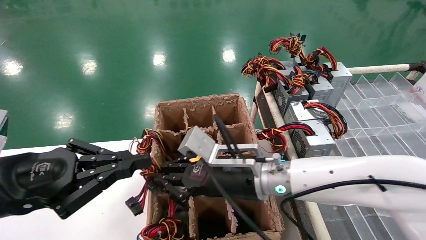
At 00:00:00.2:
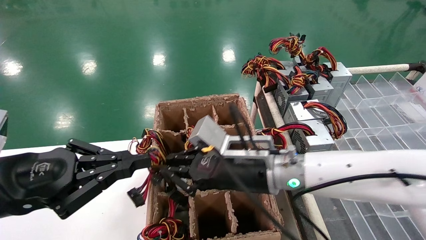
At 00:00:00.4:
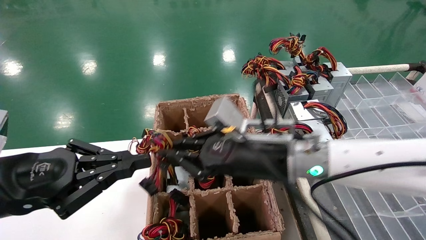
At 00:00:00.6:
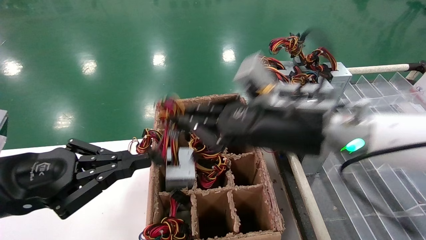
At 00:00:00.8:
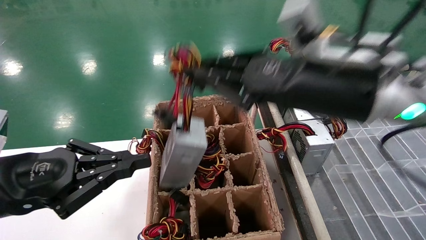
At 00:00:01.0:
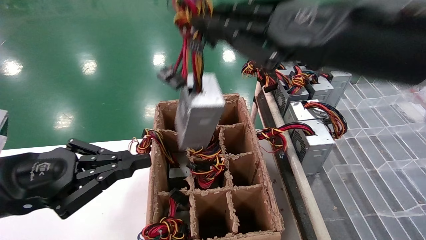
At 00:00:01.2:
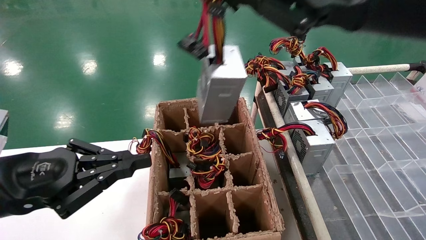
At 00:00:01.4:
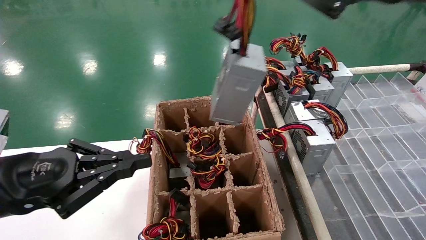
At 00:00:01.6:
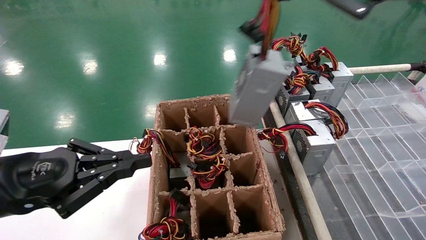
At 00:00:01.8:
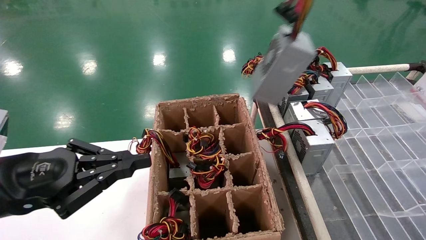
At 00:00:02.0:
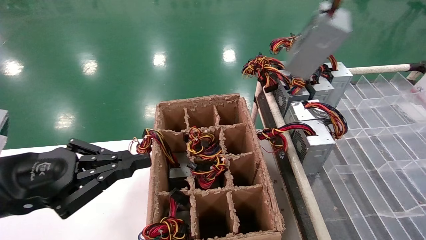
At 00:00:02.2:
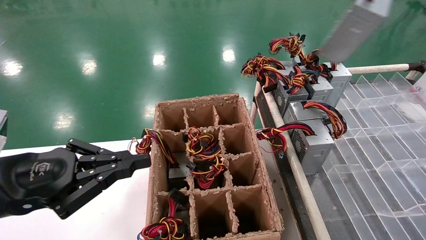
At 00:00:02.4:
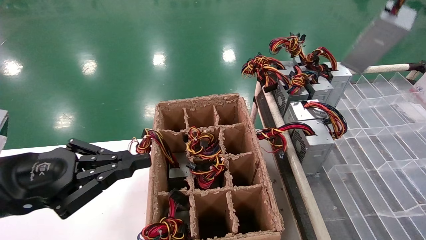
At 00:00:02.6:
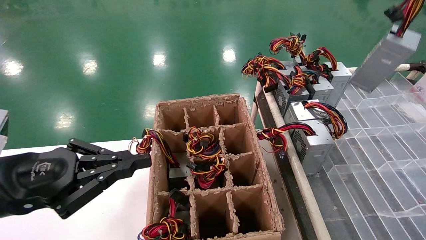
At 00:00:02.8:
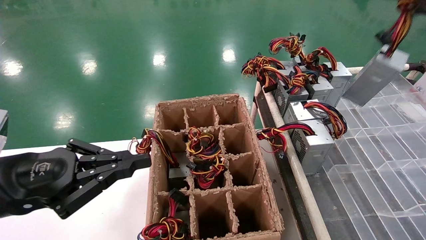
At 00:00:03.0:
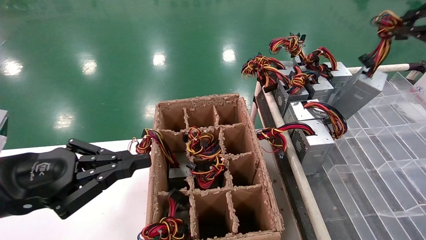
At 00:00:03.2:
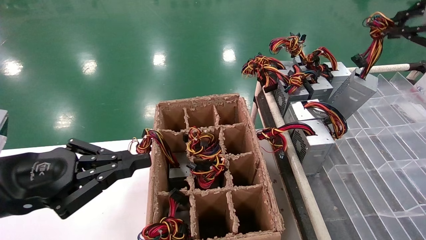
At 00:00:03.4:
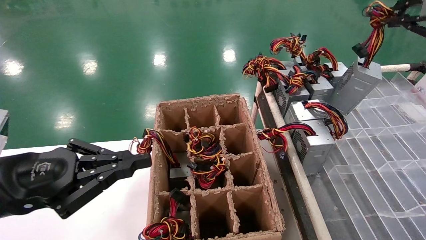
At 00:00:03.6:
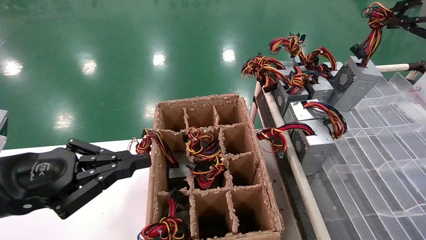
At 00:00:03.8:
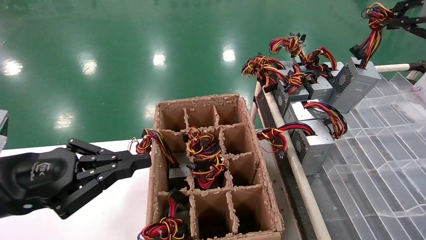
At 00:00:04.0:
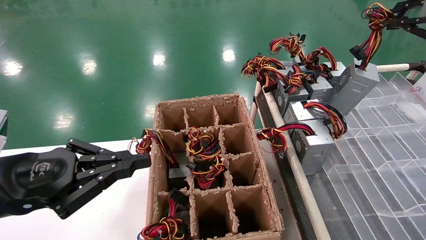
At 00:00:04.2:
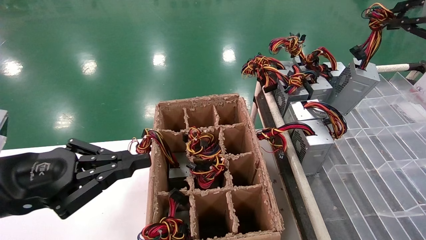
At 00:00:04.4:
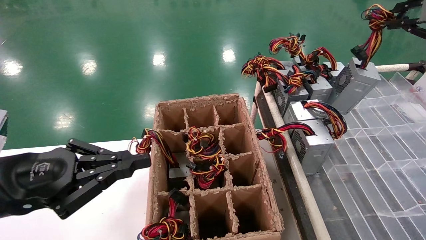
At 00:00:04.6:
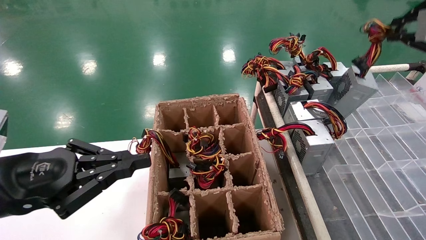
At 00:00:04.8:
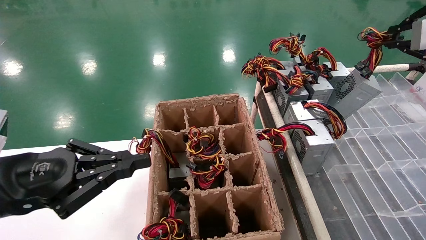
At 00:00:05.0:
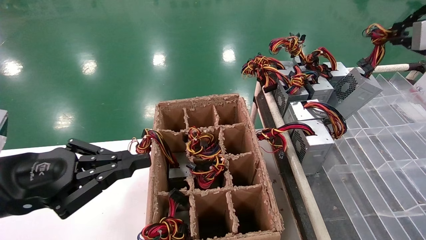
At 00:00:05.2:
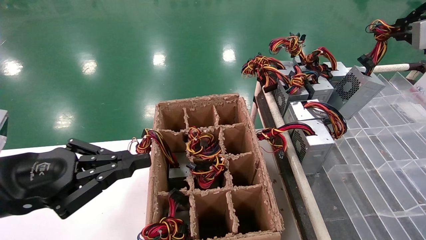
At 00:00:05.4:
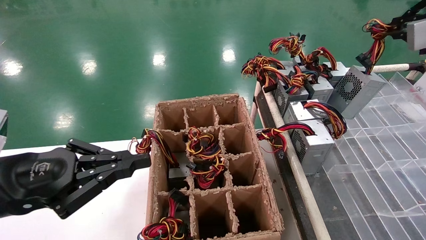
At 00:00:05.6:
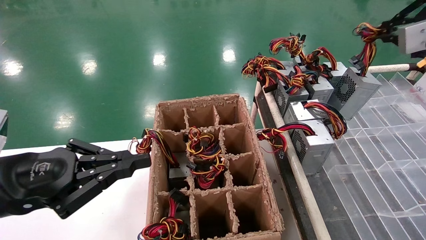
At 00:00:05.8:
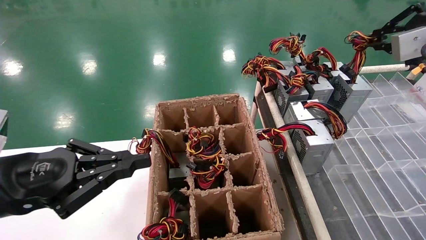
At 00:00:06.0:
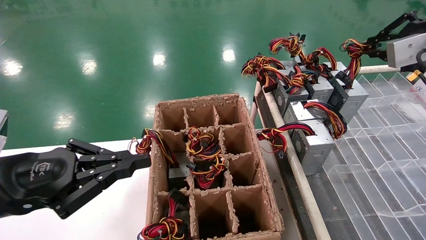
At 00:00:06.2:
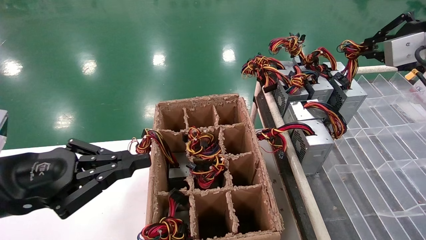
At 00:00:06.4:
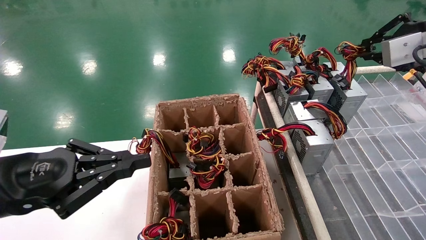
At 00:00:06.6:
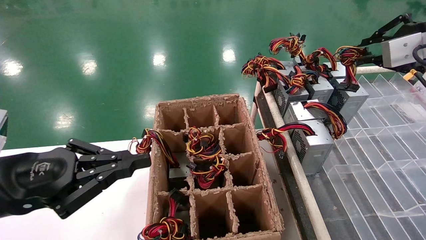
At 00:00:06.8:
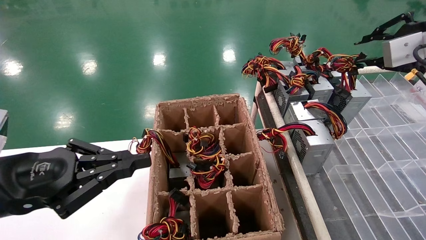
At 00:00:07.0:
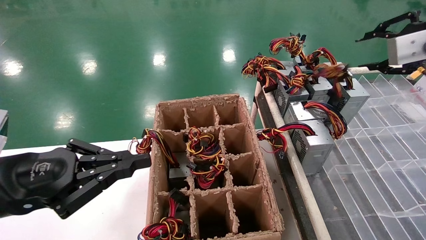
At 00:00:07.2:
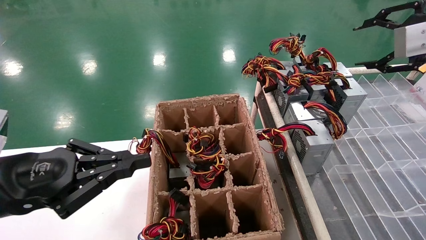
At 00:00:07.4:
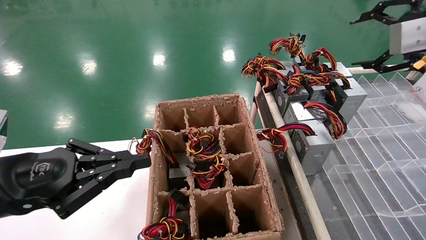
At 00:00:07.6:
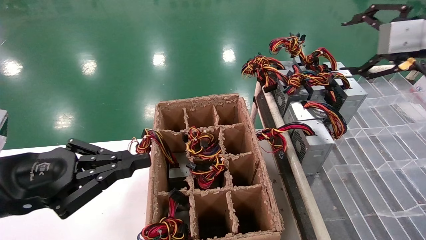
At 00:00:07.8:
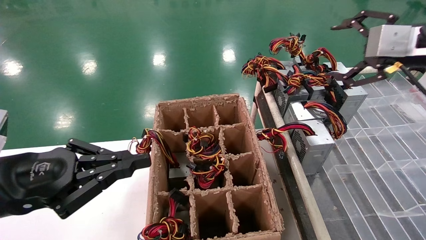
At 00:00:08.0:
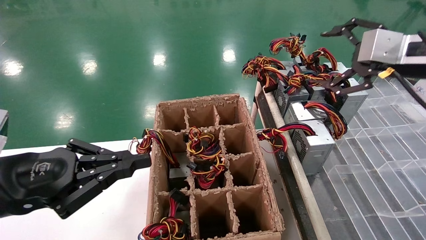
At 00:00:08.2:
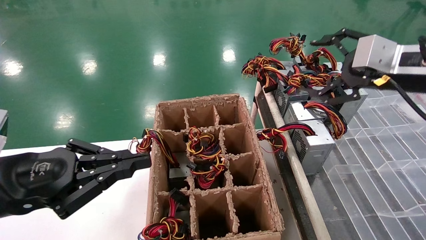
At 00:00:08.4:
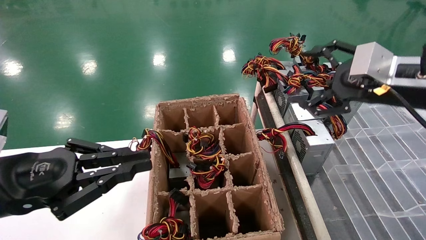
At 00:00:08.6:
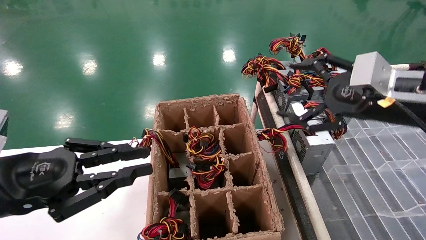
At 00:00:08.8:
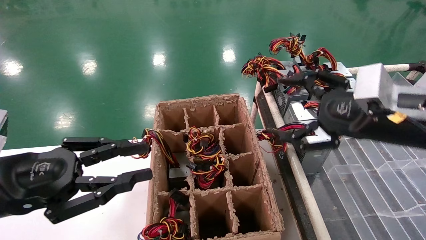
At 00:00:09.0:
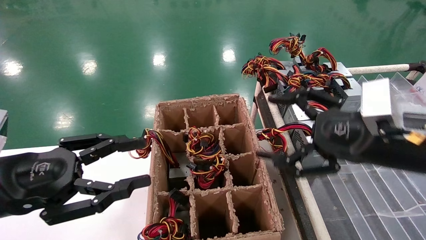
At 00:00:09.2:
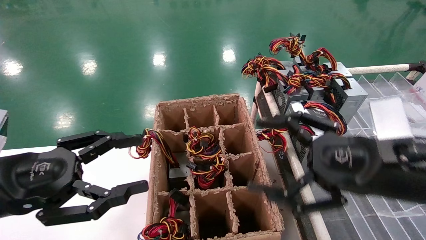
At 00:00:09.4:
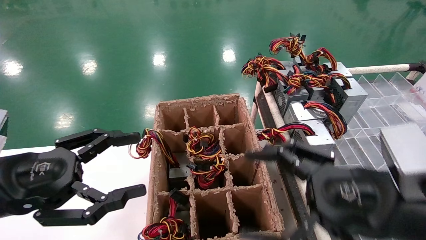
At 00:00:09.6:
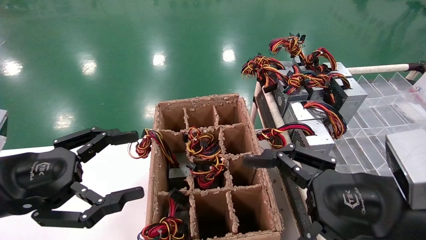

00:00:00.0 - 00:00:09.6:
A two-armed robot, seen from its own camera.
Step, 00:00:00.2 - 00:00:07.0: Place the main unit power supply in the designated area.
00:00:00.0 - 00:00:01.6: The right gripper heads upward, to the right and backward, covering about 35 cm.
00:00:01.6 - 00:00:03.2: The right gripper travels to the right and forward by roughly 20 cm.
00:00:03.2 - 00:00:04.8: The grippers stay close to where they were, moving slightly.
00:00:04.8 - 00:00:06.4: The grippers make only small movements.
00:00:06.4 - 00:00:08.0: The right gripper shifts about 5 cm to the left, and opens.
00:00:08.0 - 00:00:09.6: The right gripper moves downward, backward and to the left, approximately 25 cm, while the left gripper opens up.

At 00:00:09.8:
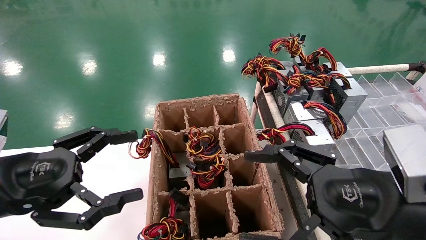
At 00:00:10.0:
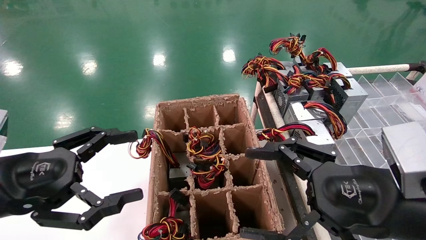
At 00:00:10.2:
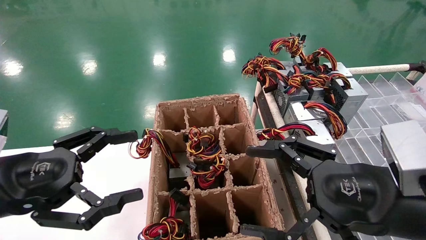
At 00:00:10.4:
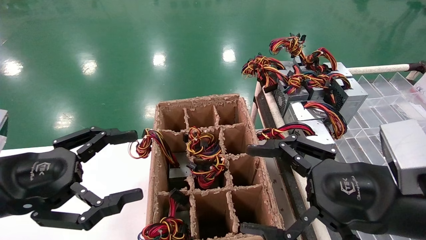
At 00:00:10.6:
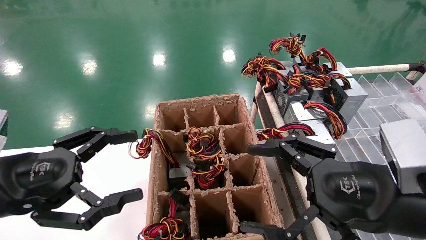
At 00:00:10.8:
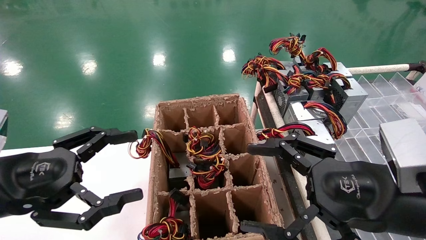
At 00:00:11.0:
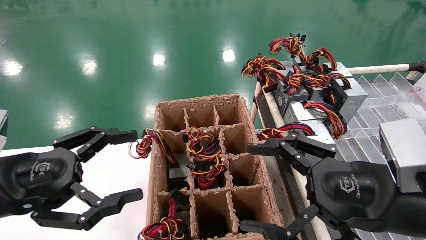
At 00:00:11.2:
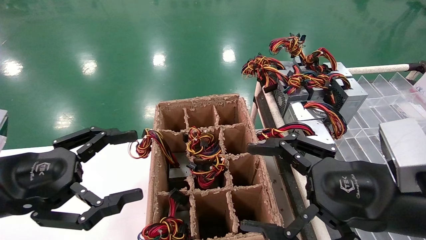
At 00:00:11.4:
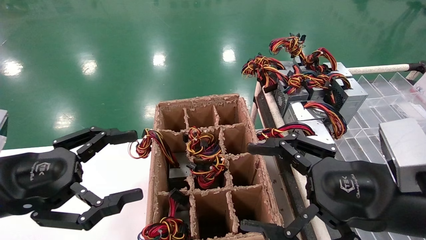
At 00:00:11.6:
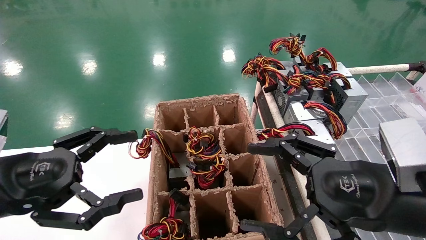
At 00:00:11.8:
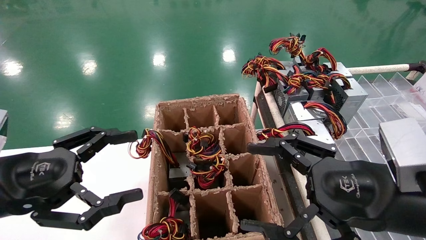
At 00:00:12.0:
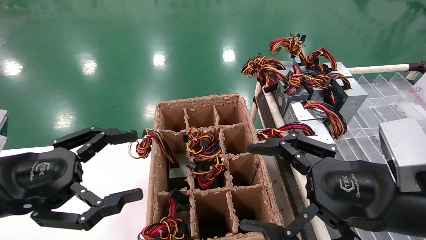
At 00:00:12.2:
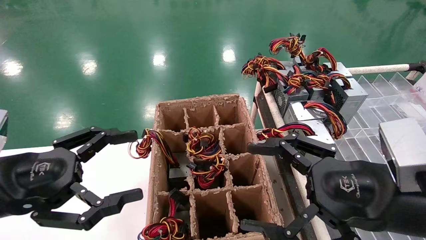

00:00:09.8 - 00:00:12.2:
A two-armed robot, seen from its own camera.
00:00:09.8 - 00:00:12.2: Both grippers stay put.
